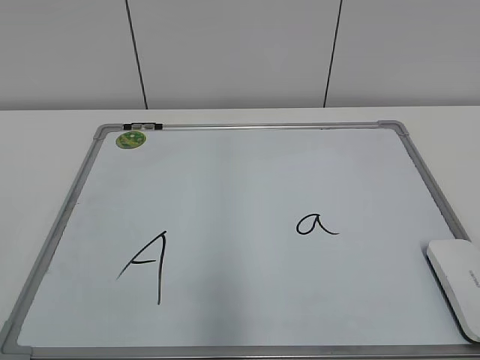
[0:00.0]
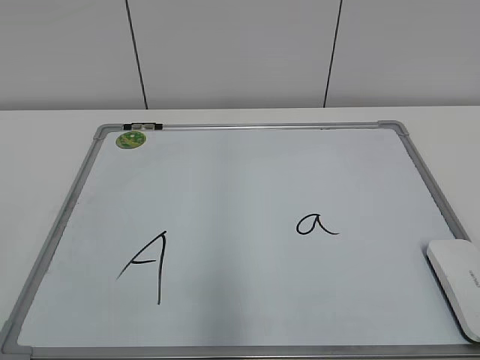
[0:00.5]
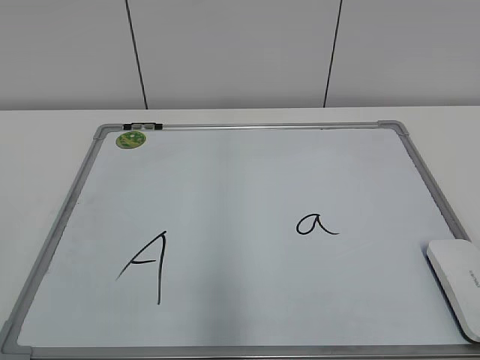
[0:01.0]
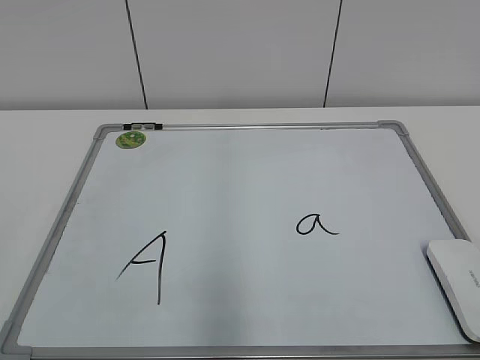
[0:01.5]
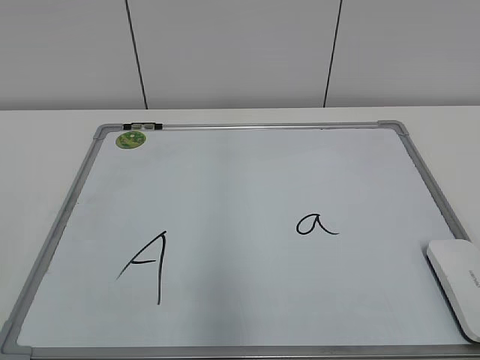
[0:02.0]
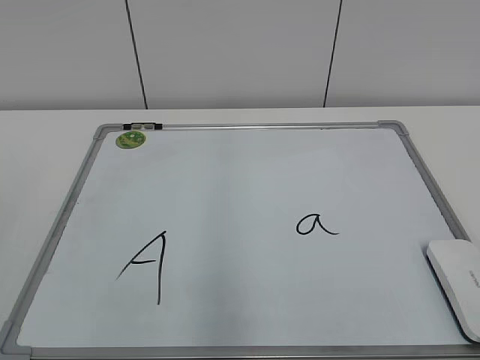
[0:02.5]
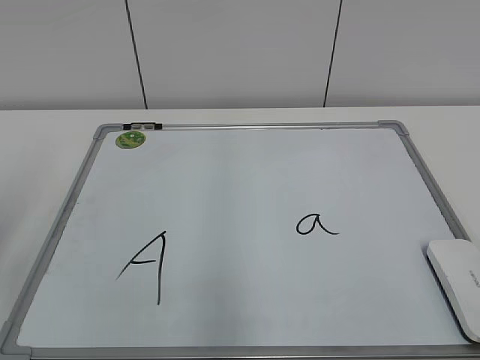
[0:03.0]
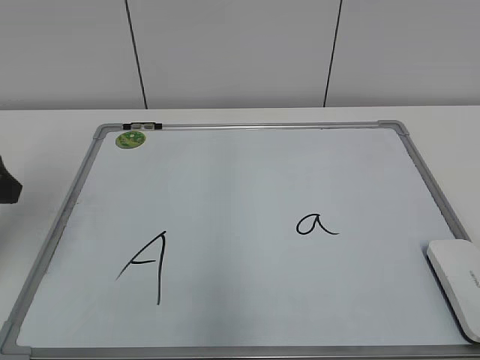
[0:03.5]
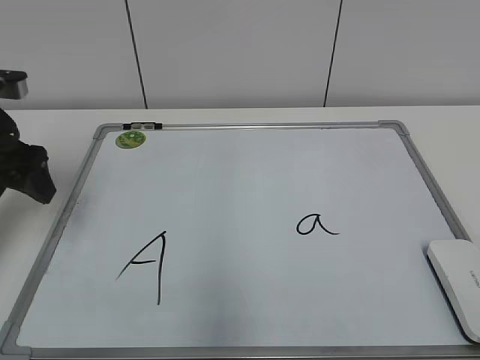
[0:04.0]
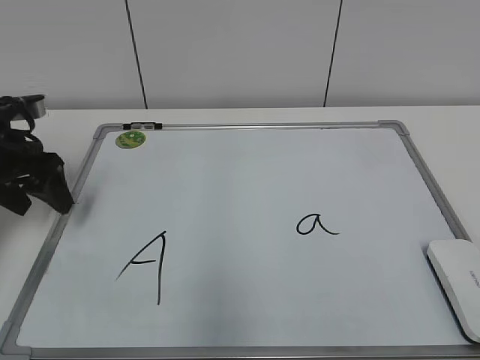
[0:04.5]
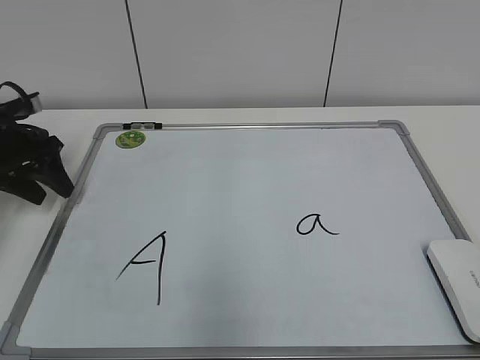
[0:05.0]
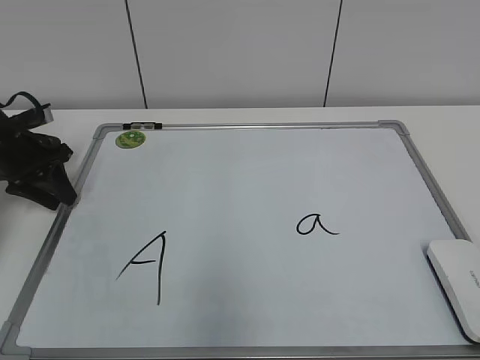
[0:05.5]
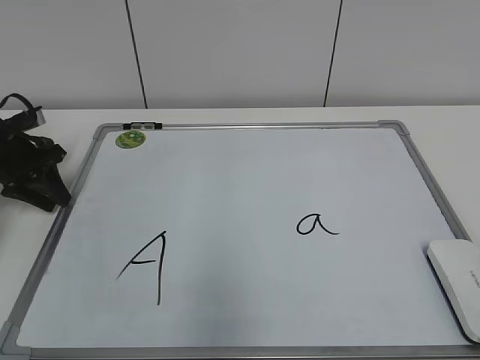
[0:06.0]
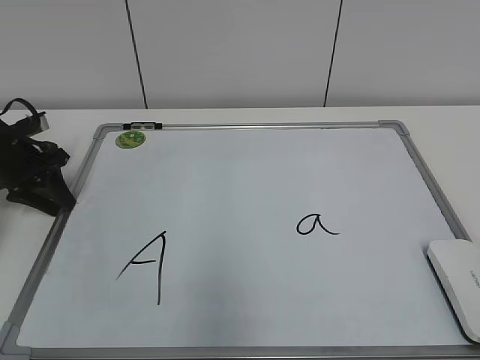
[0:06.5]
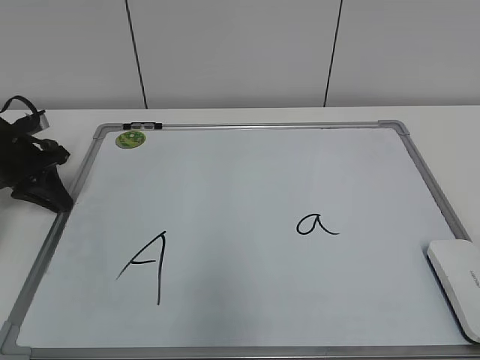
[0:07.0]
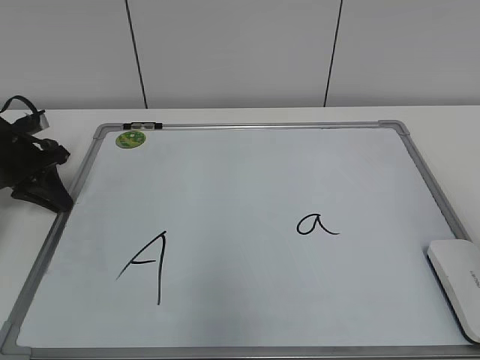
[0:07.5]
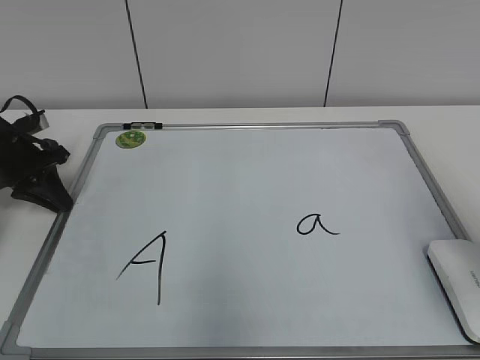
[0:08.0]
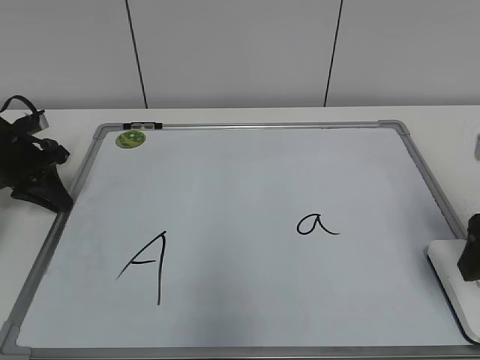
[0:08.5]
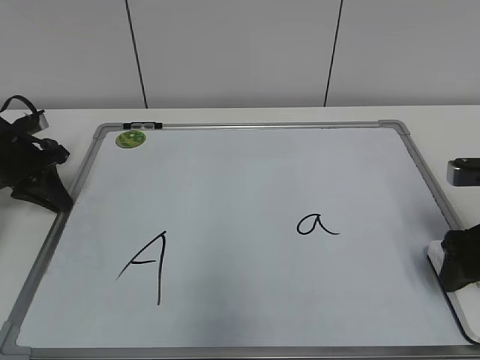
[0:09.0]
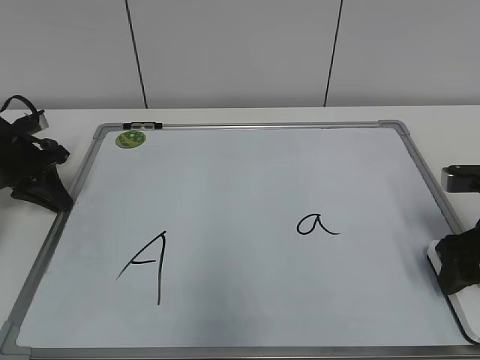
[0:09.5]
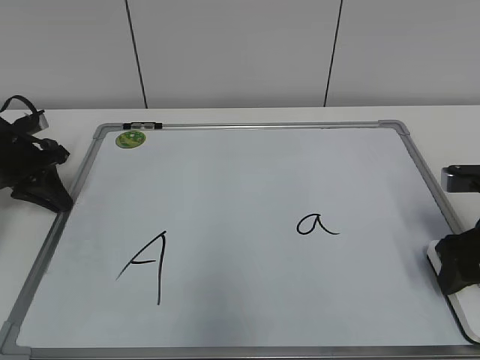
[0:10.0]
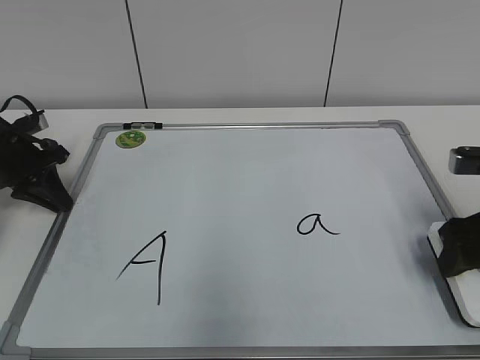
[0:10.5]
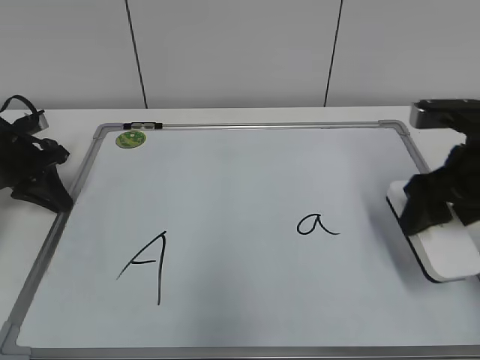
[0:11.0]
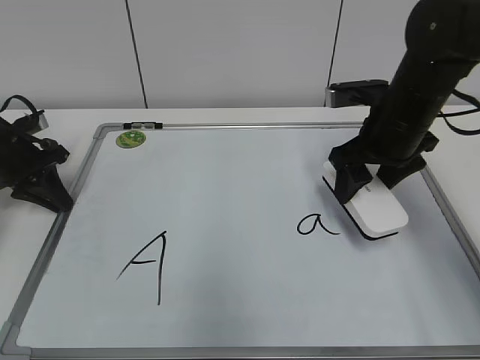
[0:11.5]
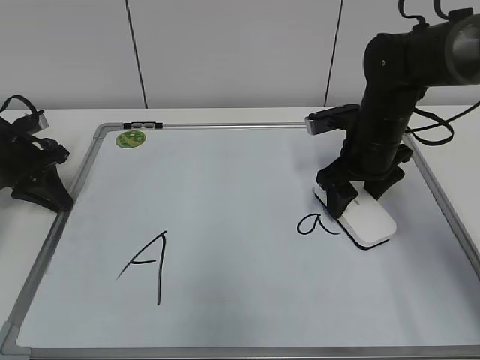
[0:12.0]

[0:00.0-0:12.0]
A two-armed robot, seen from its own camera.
Task of the whole recording: pick up the eraser on the blackboard and erase the letter "a".
Step, 0:00.0 to 0:06.5: Hold the drawing board steady with your left hand.
Step, 0:07.0 to 0:10.0: Grab the eraser with your right hand.
0:02.0 to 0:04.0: The left gripper is displaced forward by about 35 cm, and opens up.
0:04.0 to 0:06.0: The left gripper goes some 15 cm downward and forward, and closes its fingers.
0:06.0 to 0:08.0: The right gripper is displaced forward by about 20 cm, and opens.
0:08.0 to 0:10.0: The right gripper is displaced downward and forward by approximately 15 cm, and closes.
0:10.0 to 0:12.0: The right gripper goes roughly 15 cm forward and to the left.

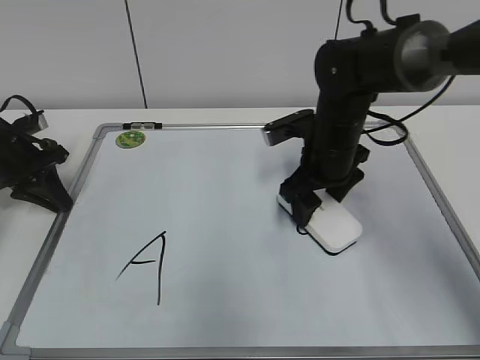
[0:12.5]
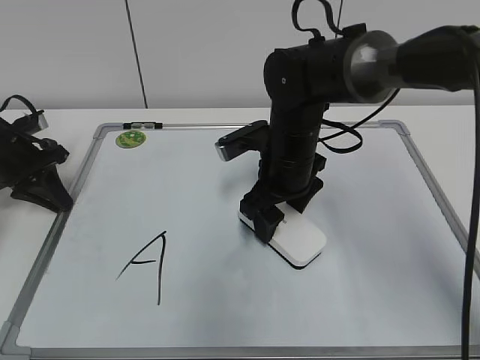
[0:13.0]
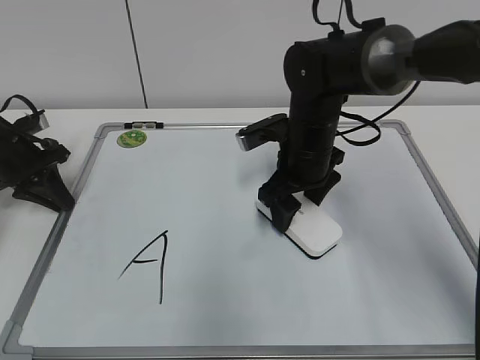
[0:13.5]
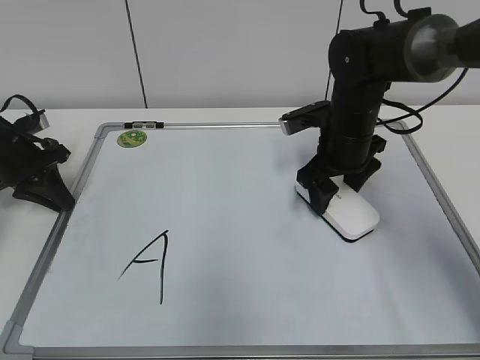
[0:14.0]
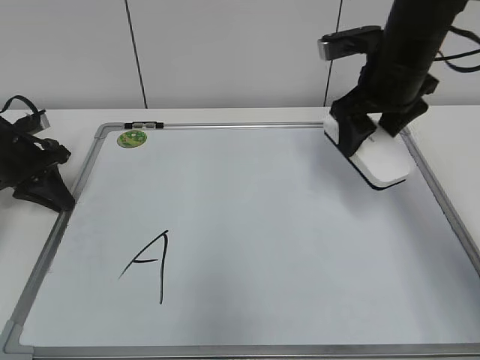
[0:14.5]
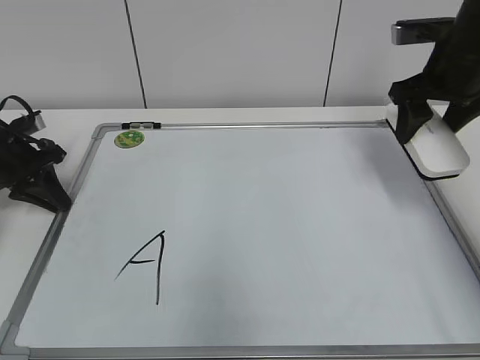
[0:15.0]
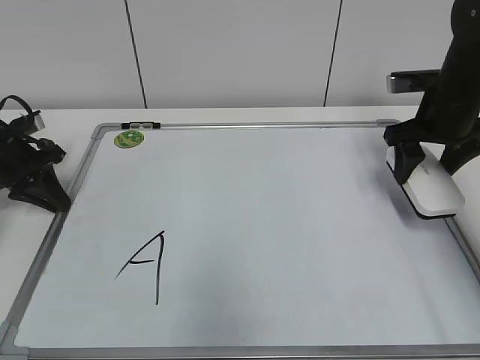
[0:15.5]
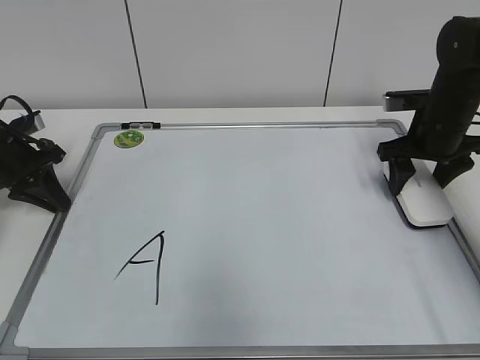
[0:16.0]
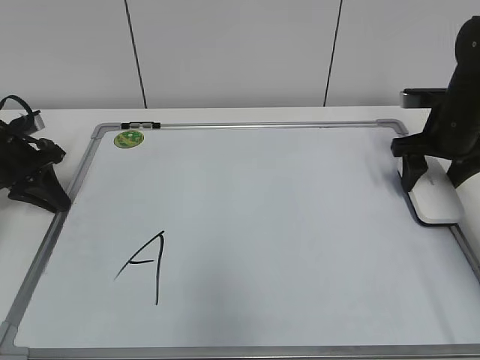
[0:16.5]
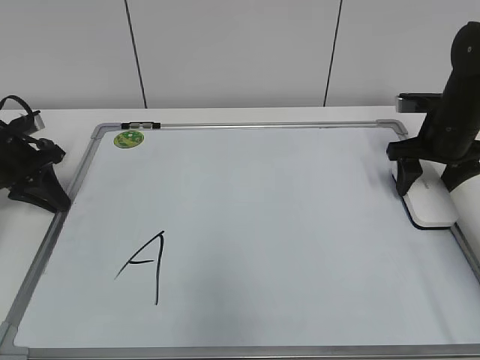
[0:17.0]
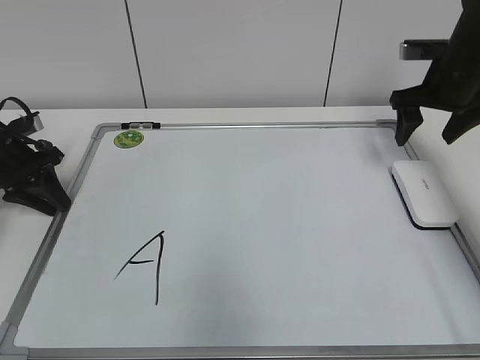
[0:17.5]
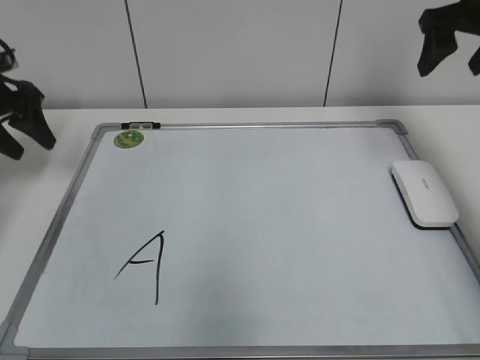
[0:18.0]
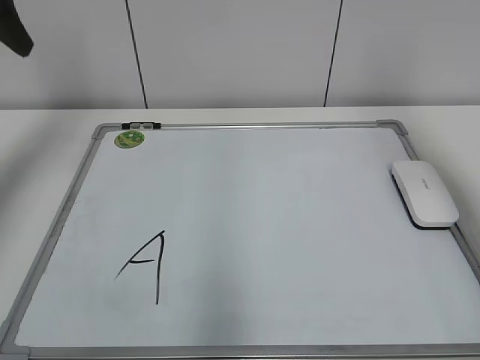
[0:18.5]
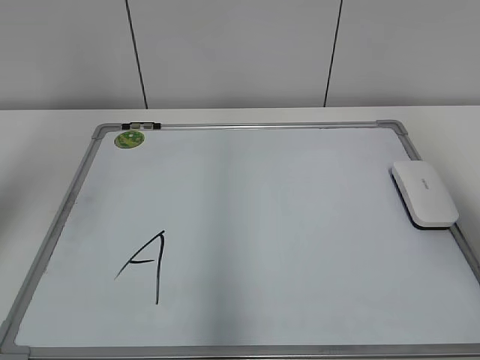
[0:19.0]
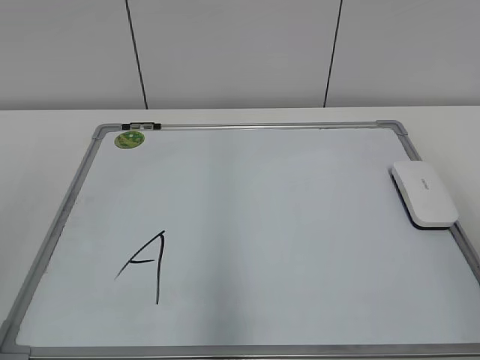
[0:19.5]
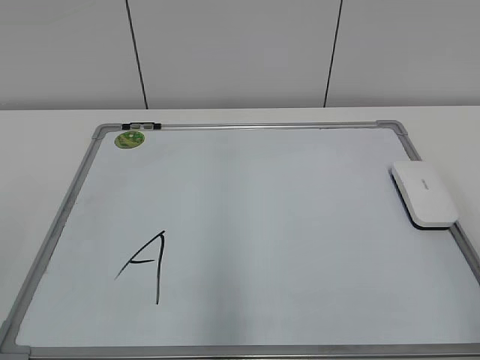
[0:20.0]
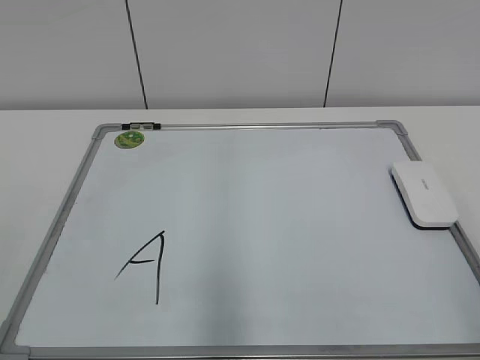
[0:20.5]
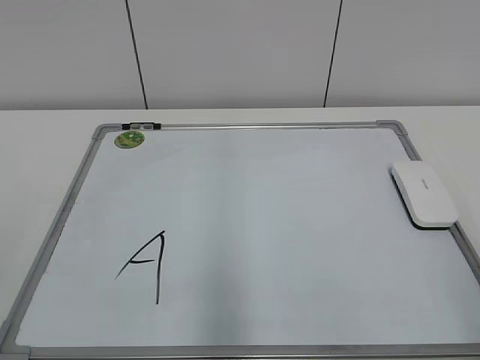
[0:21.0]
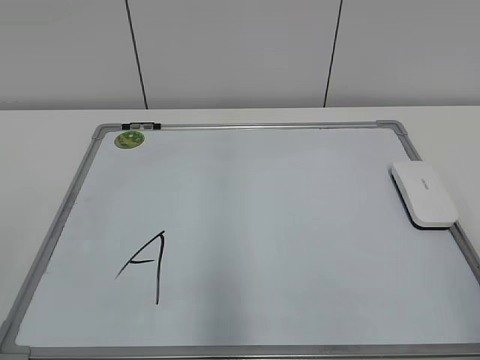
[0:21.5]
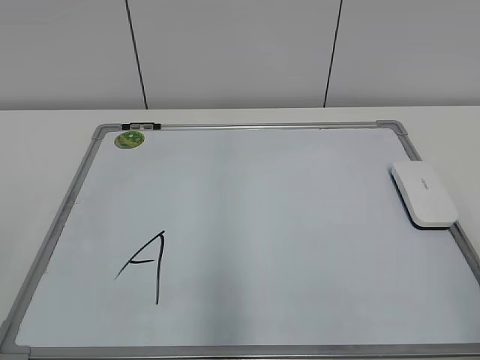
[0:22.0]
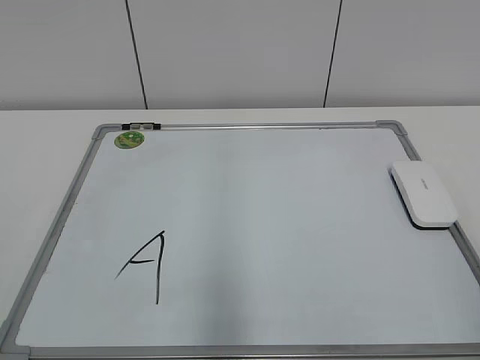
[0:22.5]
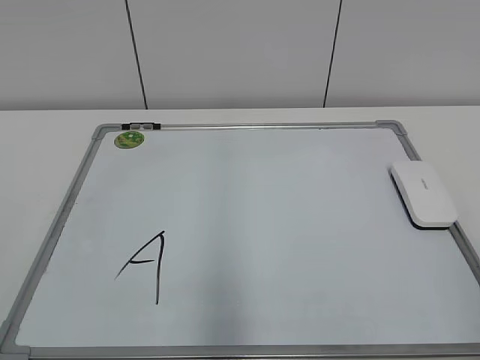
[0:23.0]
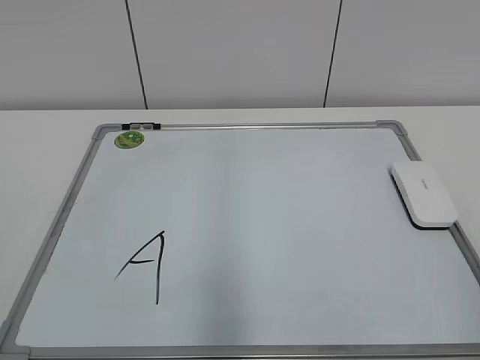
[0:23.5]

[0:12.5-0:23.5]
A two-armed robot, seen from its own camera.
Task of the whole recording: pick up the eraser on the blackboard and erase the letter "a".
Step, 0:14.0 to 0:17.0: Put down the eraser with your right hand.
0:12.5 to 0:14.5: The right gripper goes some 10 cm upward and to the right.
0:14.5 to 0:16.0: The right gripper is displaced to the right and downward by approximately 15 cm.
0:16.0 to 0:18.0: The left gripper is displaced upward by approximately 10 cm, and opens its fingers. Meanwhile the right gripper shifts approximately 15 cm upward, and opens up.
0:18.0 to 0:20.0: Both grippers move backward, about 40 cm.

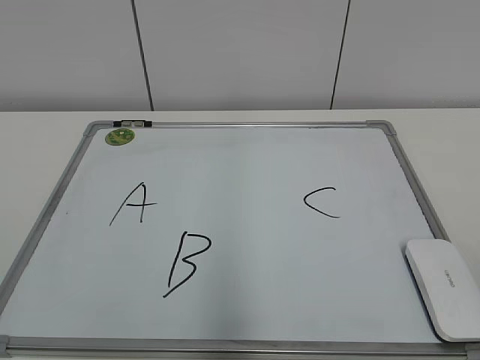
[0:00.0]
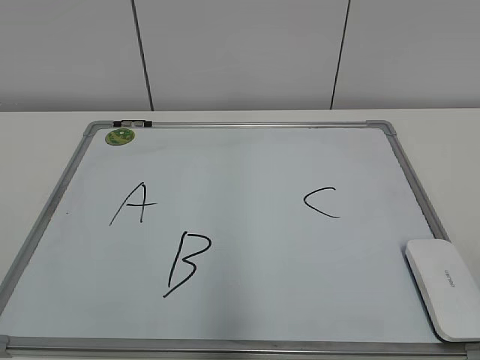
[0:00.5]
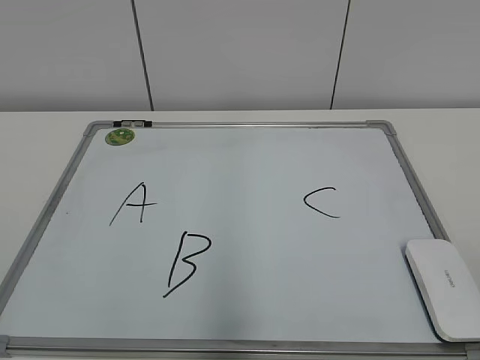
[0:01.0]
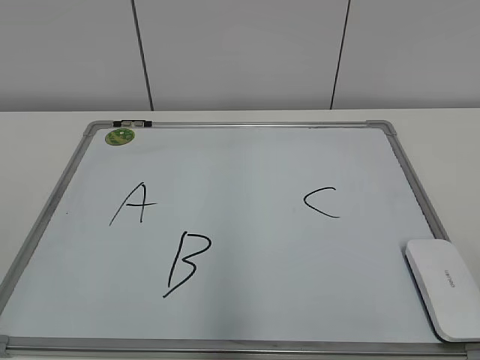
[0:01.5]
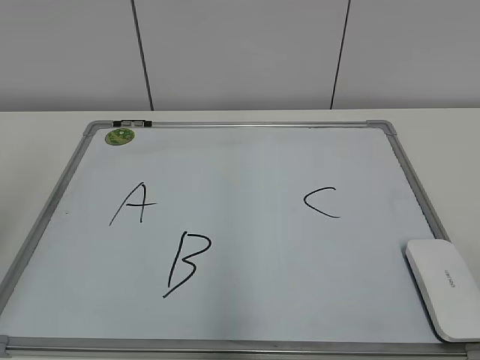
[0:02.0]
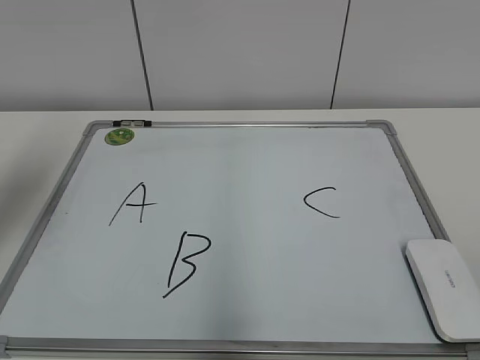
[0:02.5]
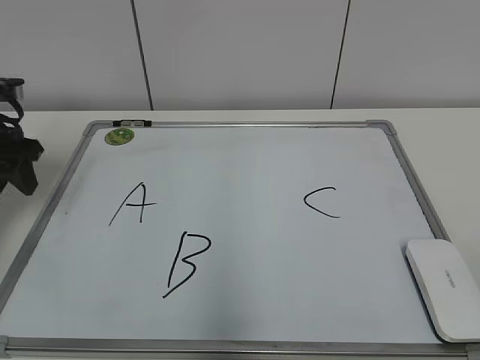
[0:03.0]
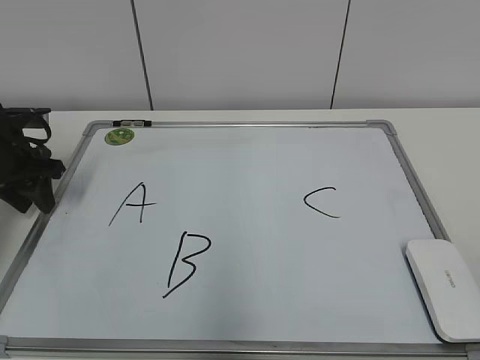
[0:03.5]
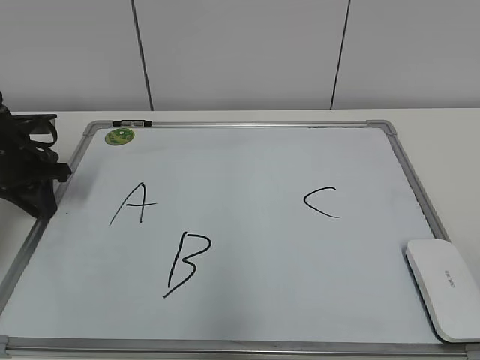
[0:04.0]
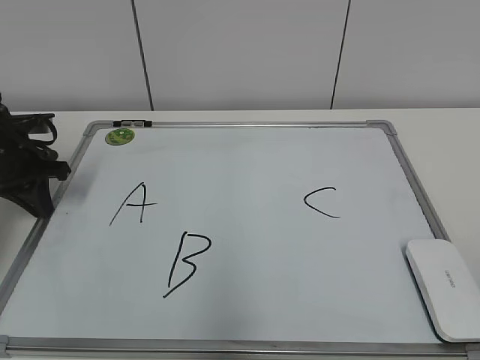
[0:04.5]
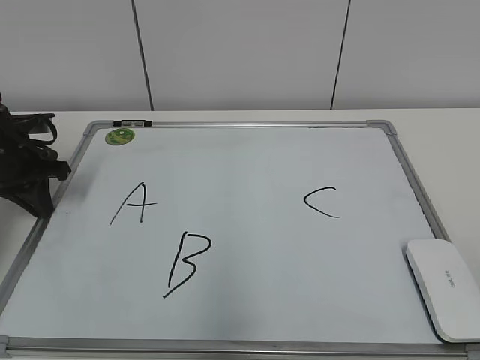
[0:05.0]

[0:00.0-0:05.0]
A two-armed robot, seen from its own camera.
Task of the whole recording: pick up the eraser on the blackboard and erase the letter "B".
Step, 0:00.0 to 0:04.0: Hold the drawing board steady with your left hand.
0:02.5 to 0:05.0: The left gripper moves downward and forward, roughly 20 cm, and closes up.
